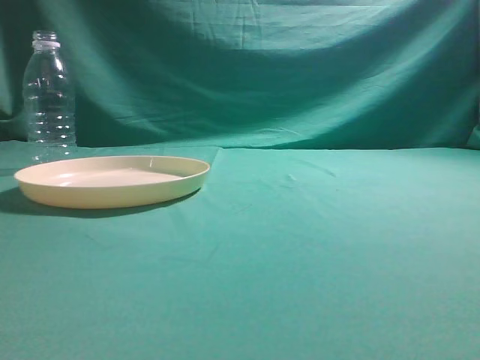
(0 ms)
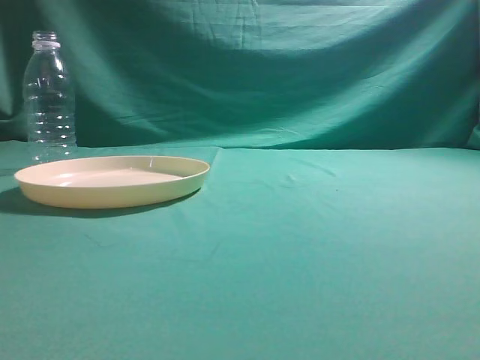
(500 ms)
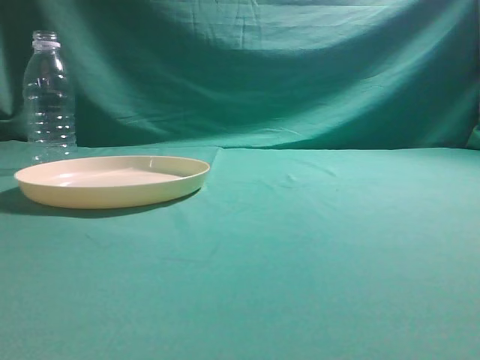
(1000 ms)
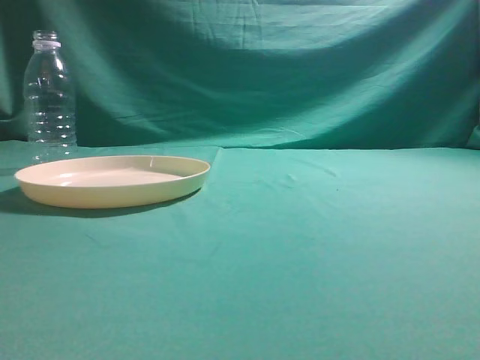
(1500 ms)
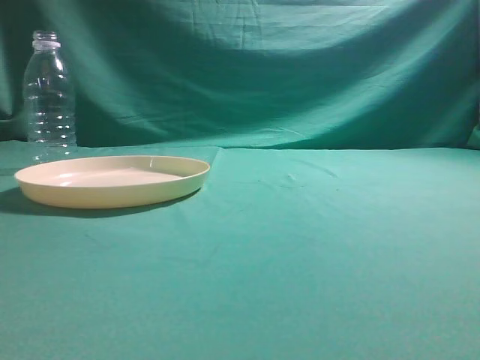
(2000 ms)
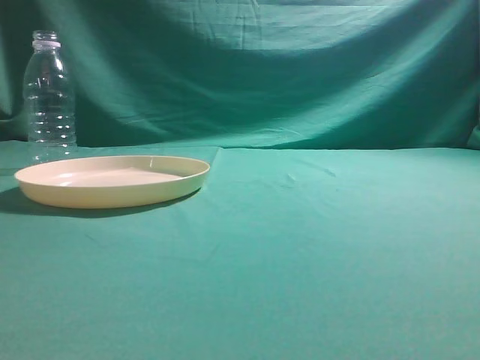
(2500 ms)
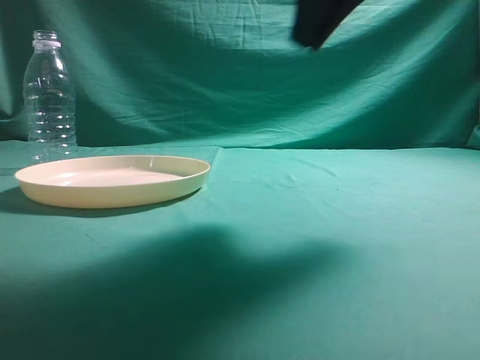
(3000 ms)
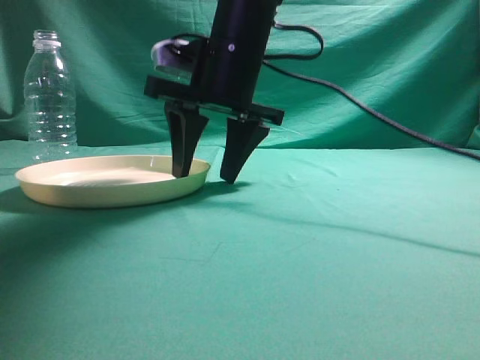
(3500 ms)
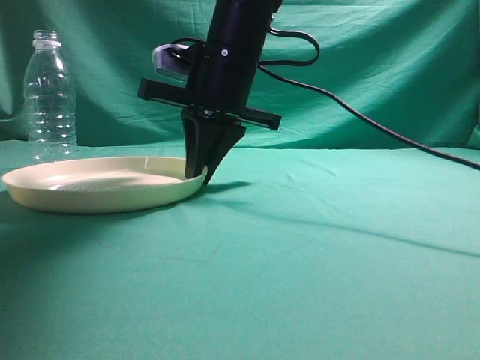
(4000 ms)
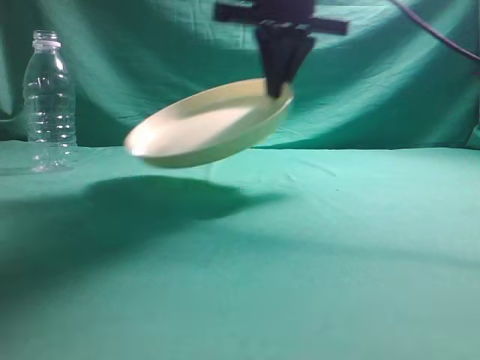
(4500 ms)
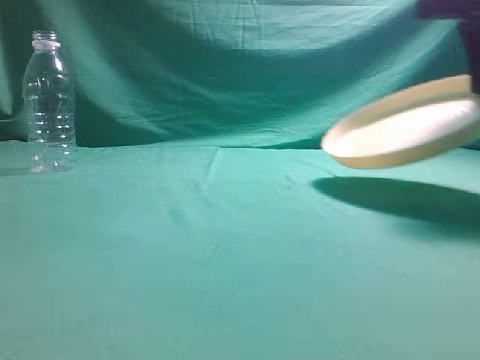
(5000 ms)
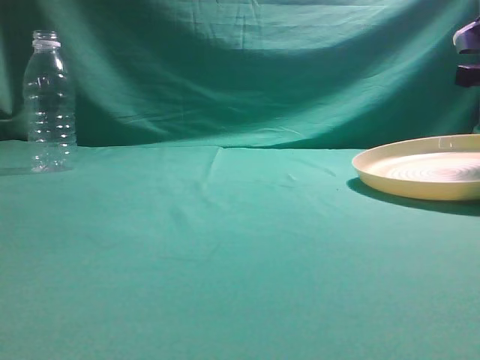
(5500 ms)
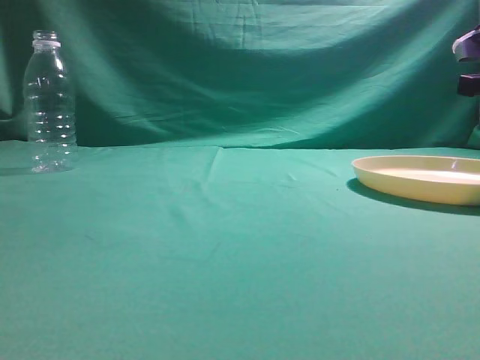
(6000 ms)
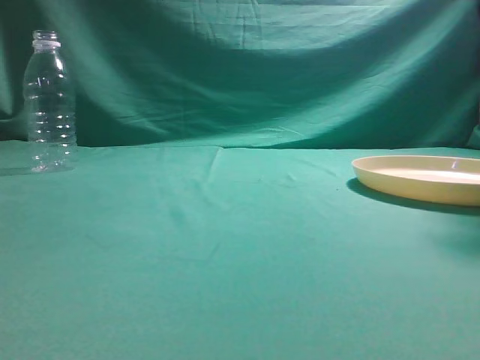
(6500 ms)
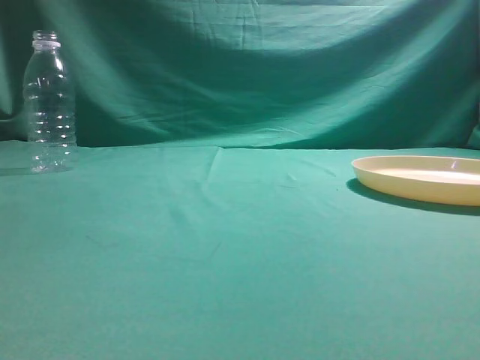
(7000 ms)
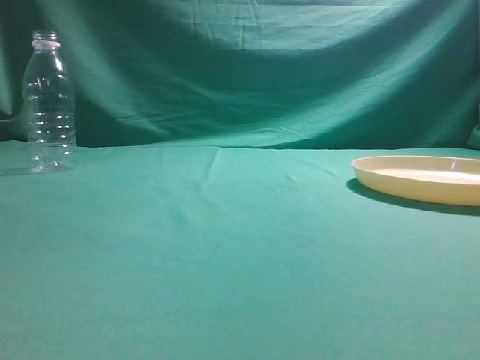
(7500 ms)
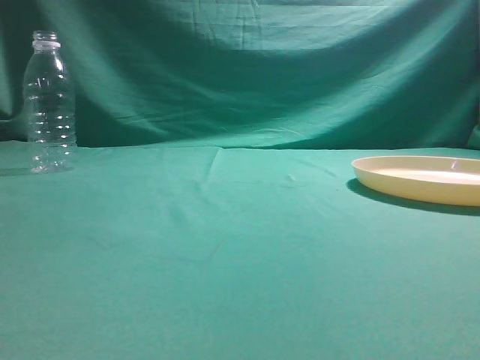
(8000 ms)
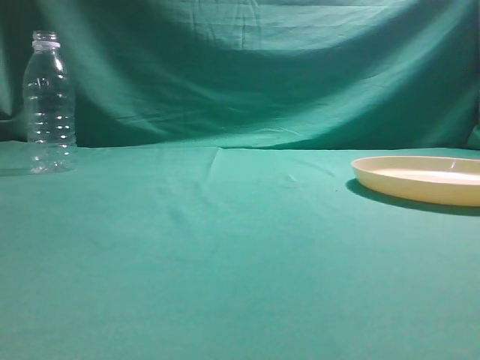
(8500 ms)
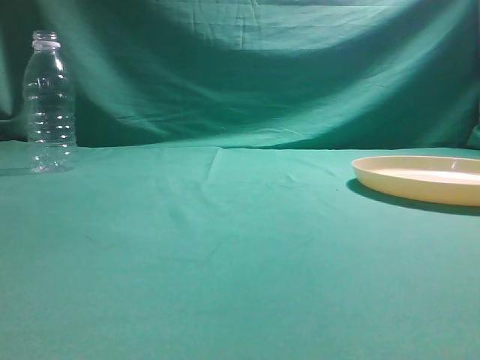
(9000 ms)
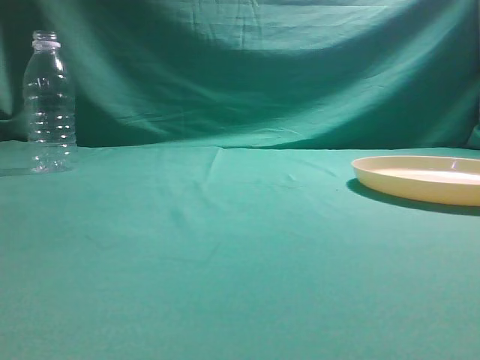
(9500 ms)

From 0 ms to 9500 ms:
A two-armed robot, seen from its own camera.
Step, from 0 ms to 4500 ms: Pick the container that can hold fruits.
Step, from 5000 ms to 6000 ms: Move the picked object to the right side of the table.
From 2000 ms to 4000 ms: The right gripper moves forward and to the left, some 50 cm, and opens up.
From 4000 ms to 5500 ms: The right gripper shifts about 30 cm to the right, and closes.
From 5500 ms to 7500 ms: The right gripper moves backward and upward, roughly 35 cm, and opens, then closes once more.
